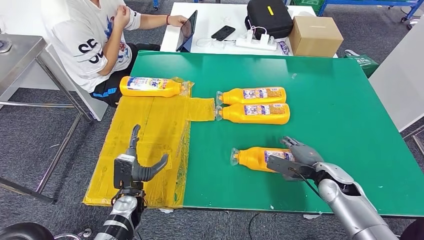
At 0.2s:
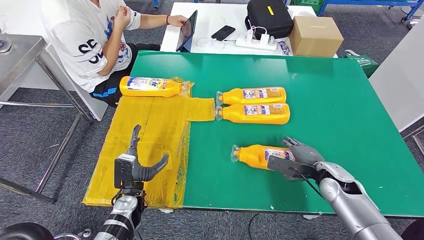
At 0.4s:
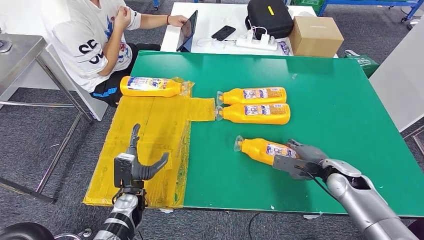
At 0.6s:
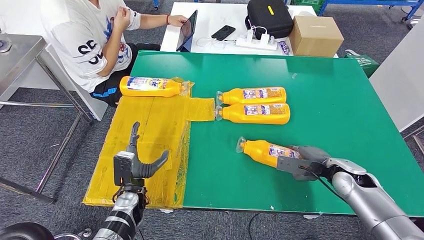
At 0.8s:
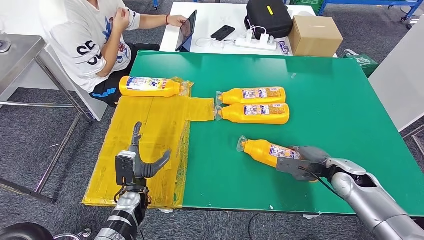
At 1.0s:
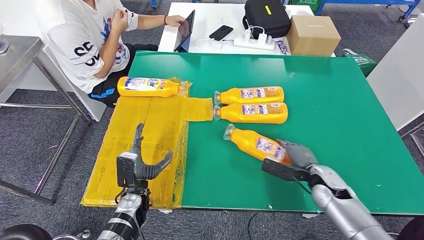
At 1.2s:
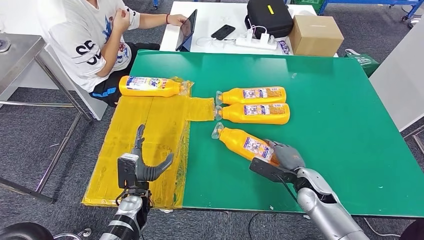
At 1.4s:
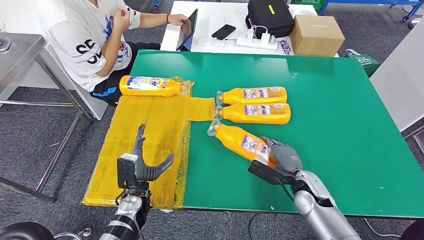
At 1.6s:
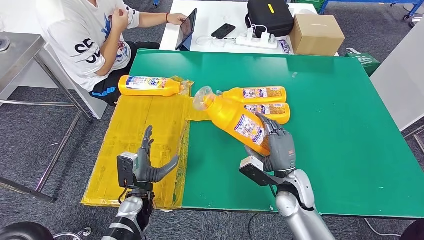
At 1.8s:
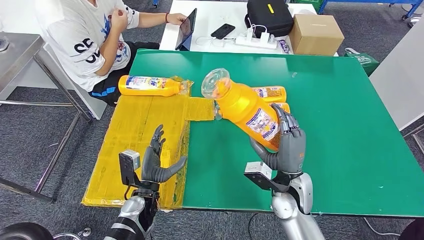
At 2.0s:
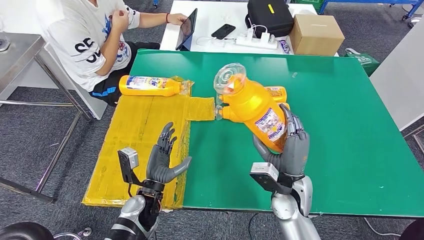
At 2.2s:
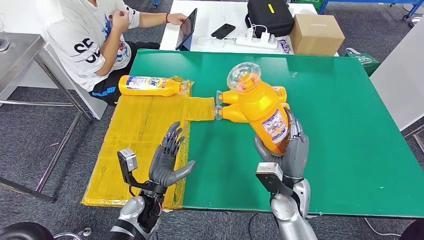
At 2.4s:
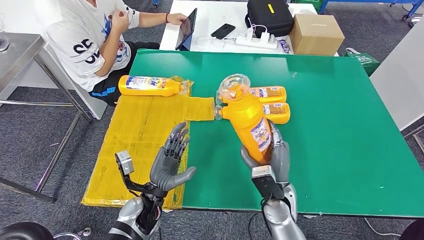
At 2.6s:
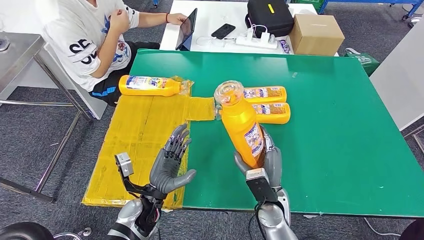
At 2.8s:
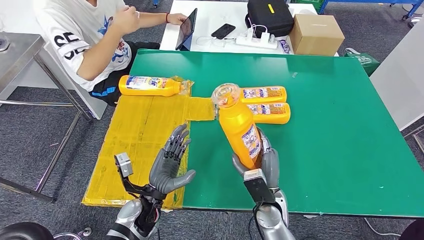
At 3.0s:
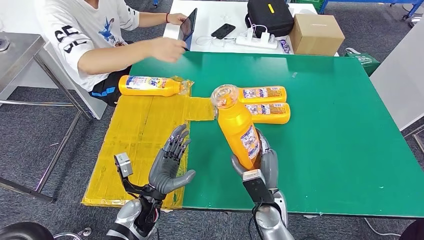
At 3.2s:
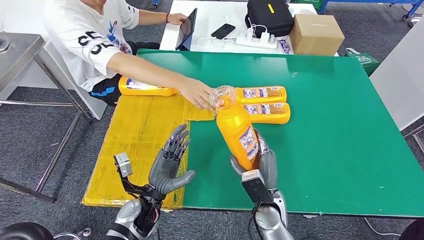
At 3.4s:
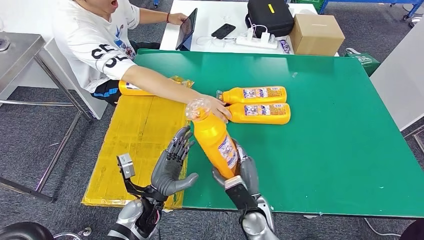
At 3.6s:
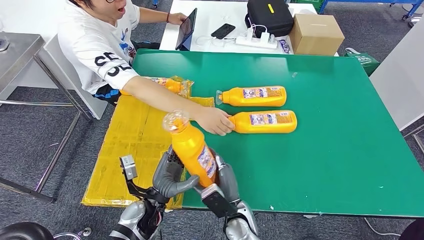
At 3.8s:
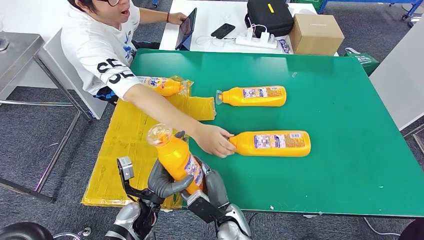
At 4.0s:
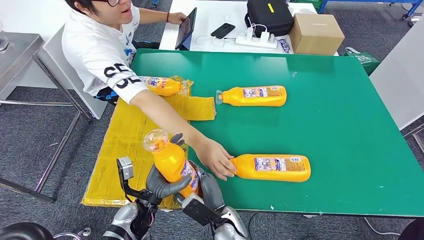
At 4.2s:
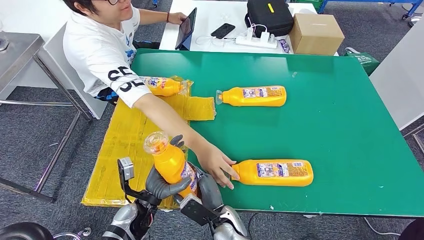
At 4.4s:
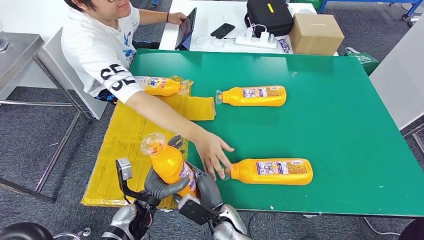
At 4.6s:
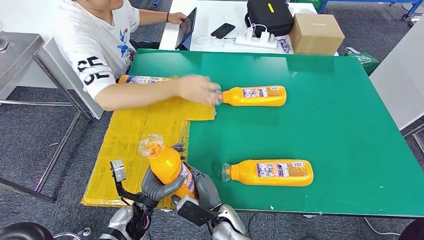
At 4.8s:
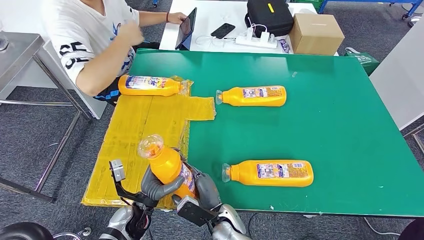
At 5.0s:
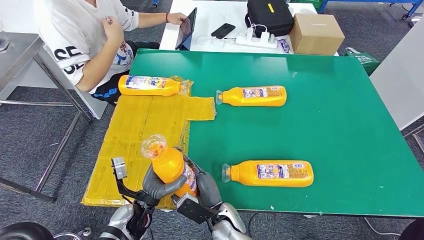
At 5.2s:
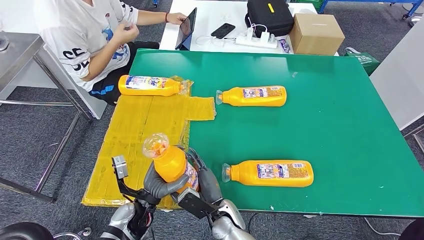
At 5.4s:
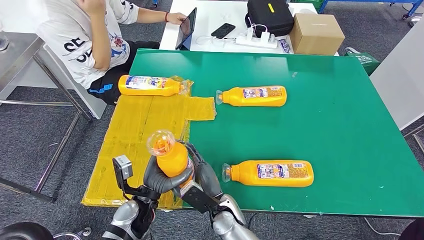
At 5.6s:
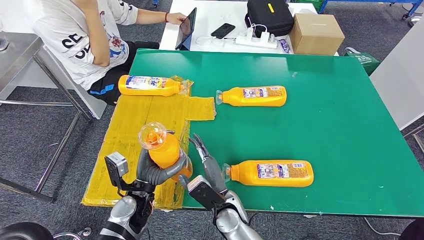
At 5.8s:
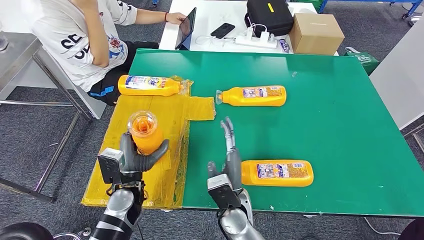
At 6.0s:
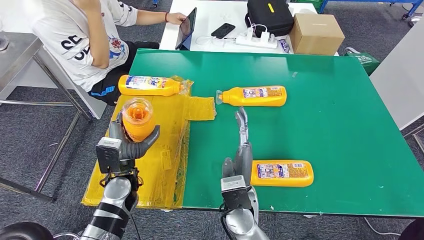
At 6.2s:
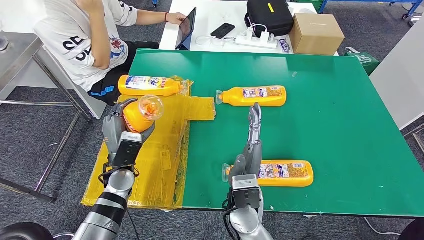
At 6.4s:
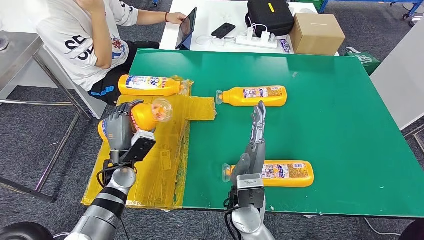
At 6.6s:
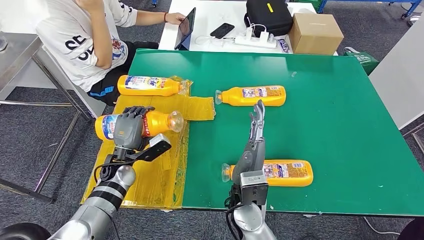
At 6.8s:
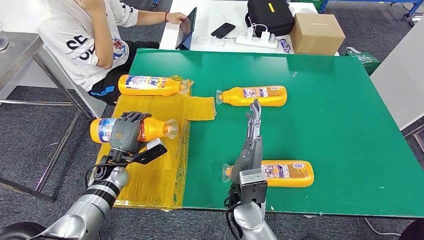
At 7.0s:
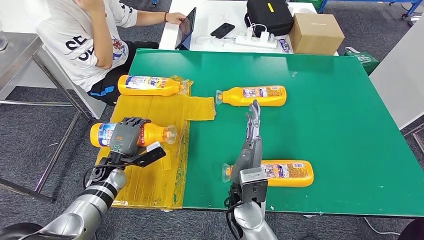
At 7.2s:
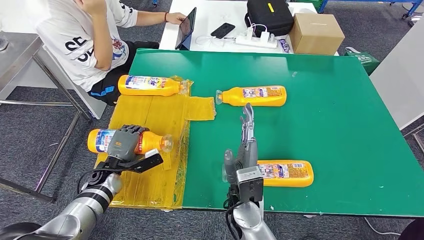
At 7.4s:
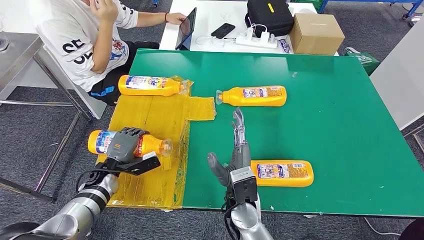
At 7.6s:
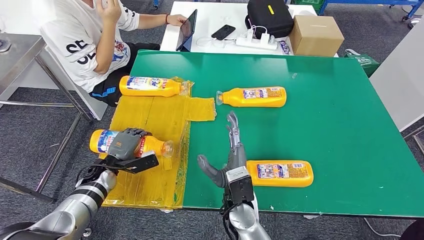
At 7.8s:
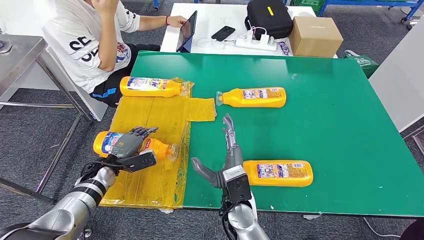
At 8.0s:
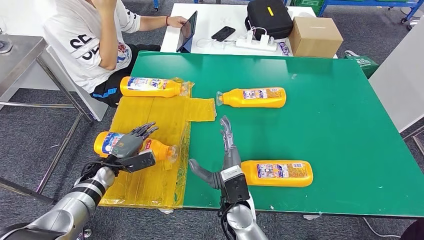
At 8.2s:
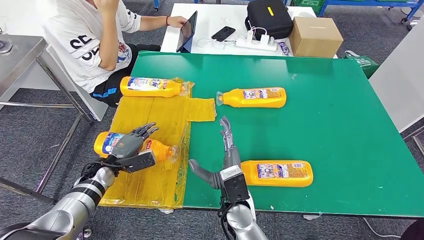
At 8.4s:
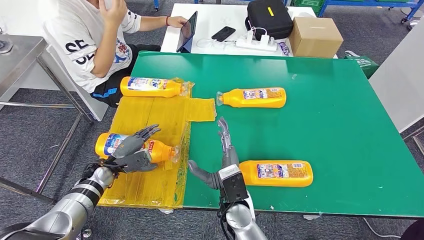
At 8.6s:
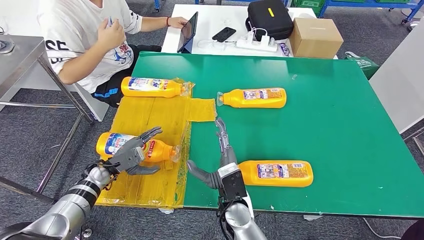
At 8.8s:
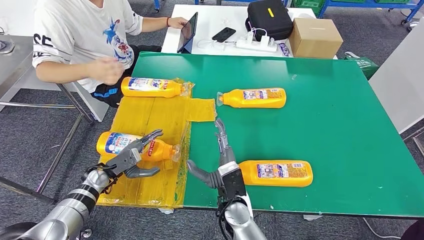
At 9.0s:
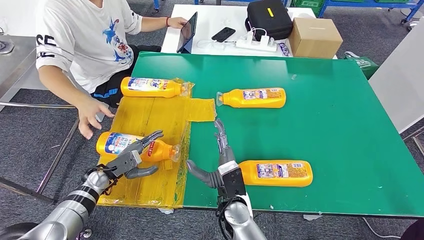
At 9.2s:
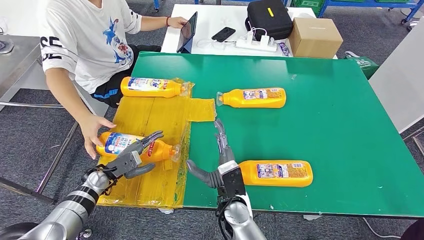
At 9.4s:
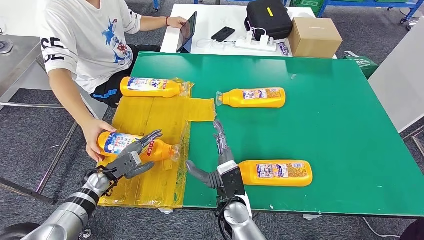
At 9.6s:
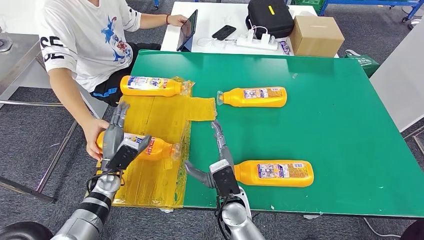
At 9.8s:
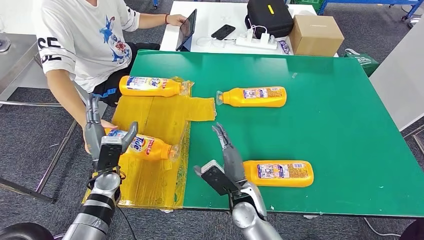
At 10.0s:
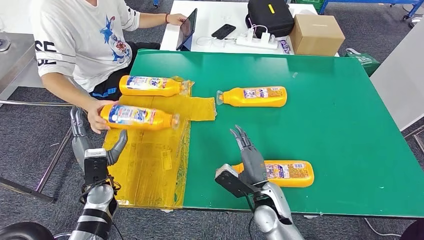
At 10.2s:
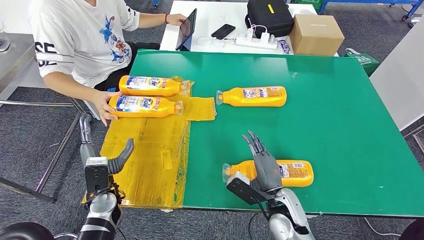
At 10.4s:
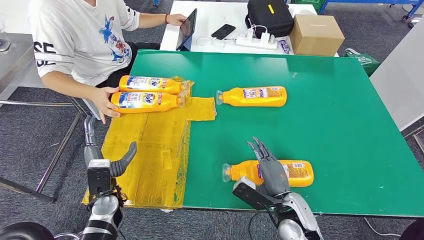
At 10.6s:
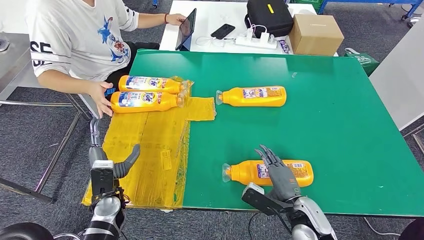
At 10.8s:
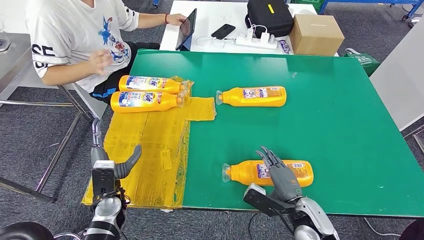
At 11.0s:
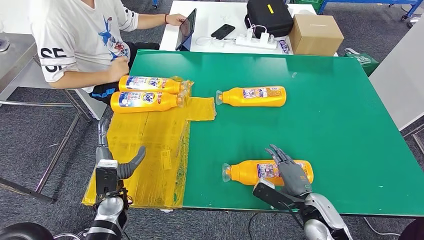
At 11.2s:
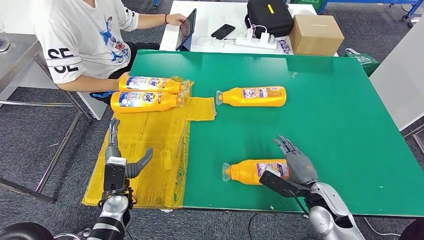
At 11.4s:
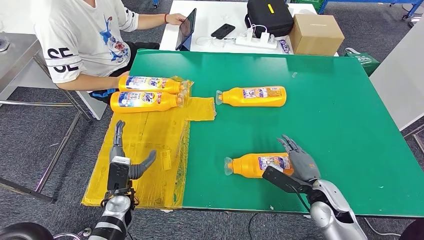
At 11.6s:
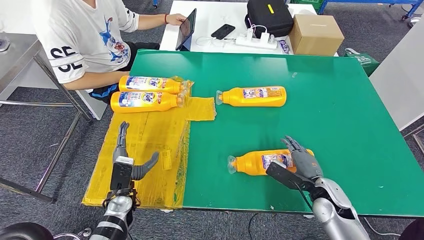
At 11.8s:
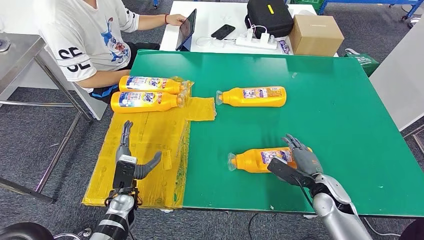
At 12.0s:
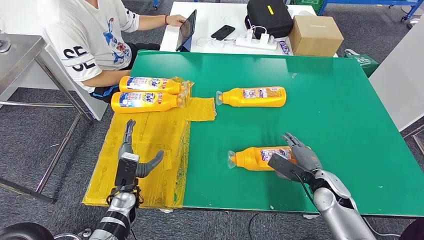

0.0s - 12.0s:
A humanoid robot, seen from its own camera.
Step, 0.0s - 2.4s: Pick up the fast-moving consumer goods bottle from the table.
Step, 2.6s - 6.4s: Flip the fast-moving consumer goods bottle to the front side.
1.6s - 3.0s: The left hand moves approximately 5 cm. Meanwhile the right hand moves to the left, approximately 5 cm.
6.0s - 7.6s: The left hand moves to the left, downward and forward, some 15 cm.

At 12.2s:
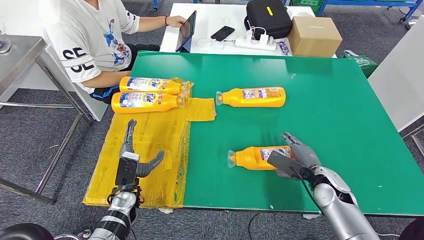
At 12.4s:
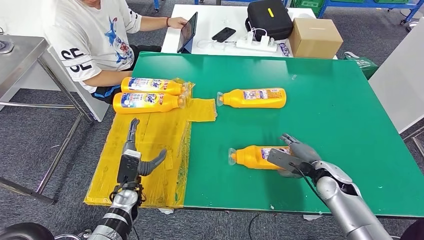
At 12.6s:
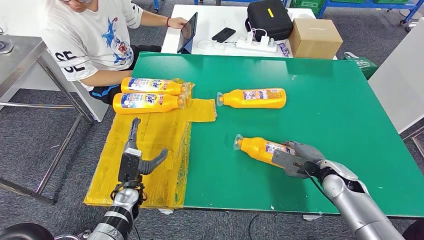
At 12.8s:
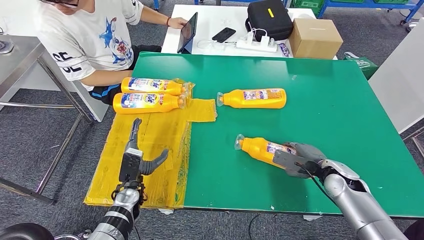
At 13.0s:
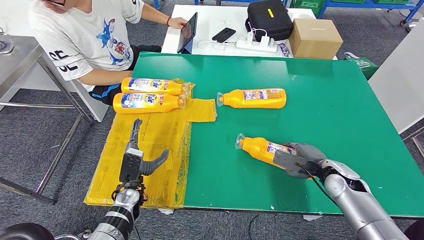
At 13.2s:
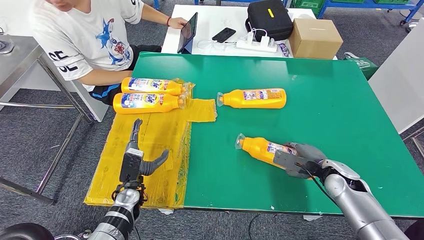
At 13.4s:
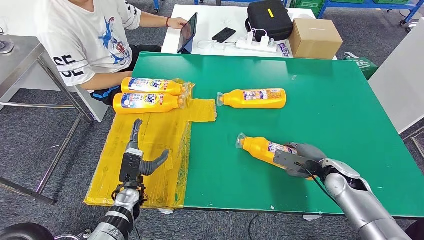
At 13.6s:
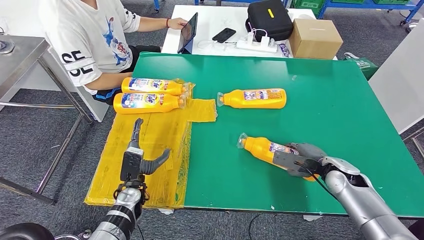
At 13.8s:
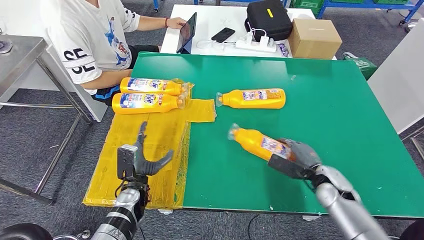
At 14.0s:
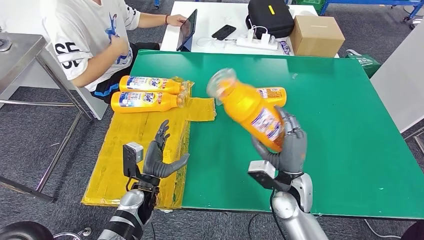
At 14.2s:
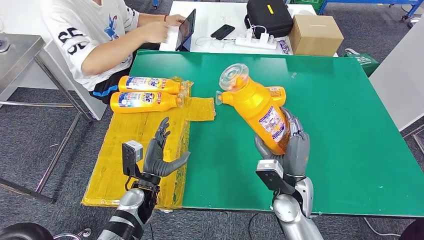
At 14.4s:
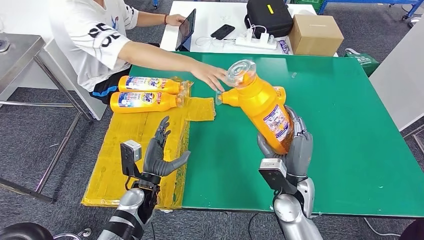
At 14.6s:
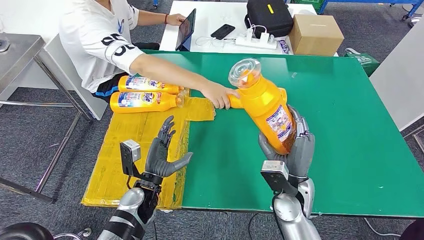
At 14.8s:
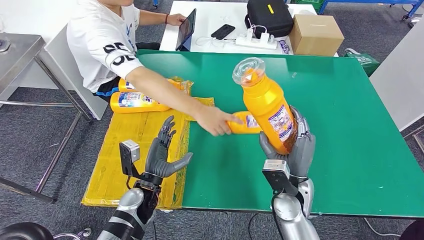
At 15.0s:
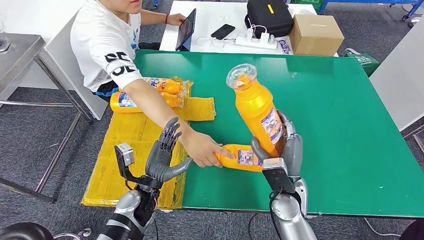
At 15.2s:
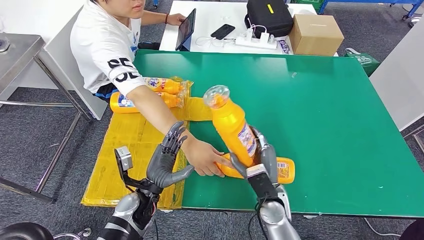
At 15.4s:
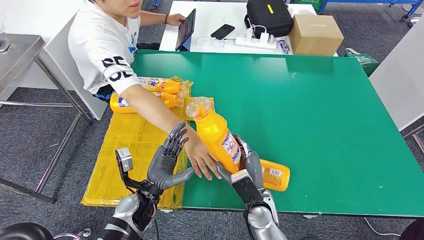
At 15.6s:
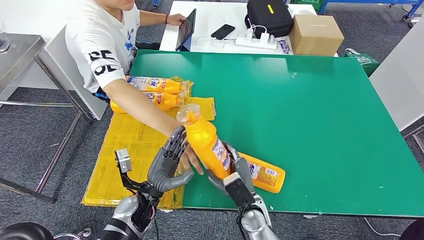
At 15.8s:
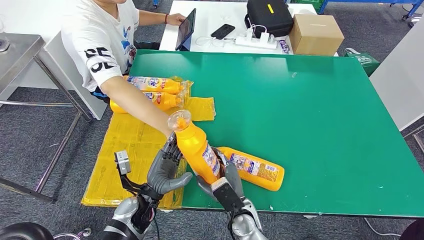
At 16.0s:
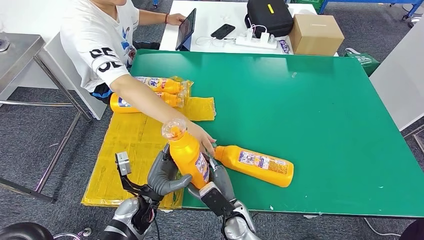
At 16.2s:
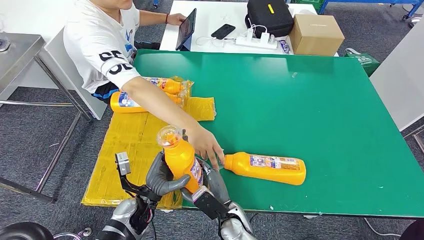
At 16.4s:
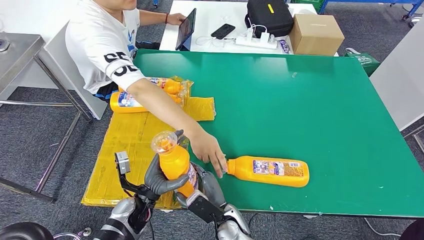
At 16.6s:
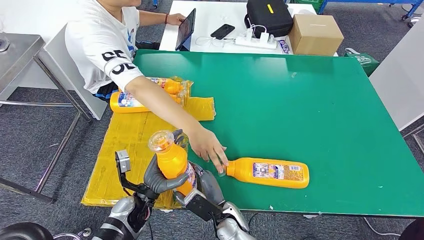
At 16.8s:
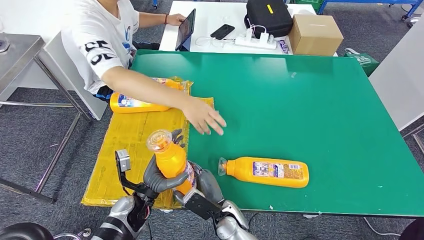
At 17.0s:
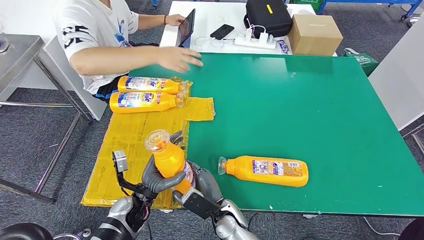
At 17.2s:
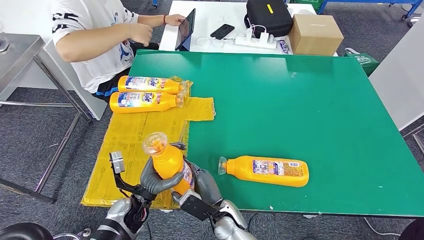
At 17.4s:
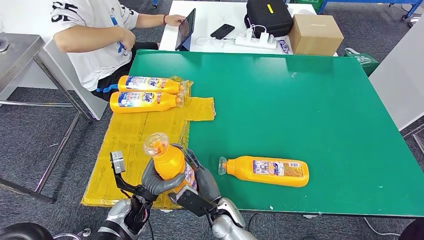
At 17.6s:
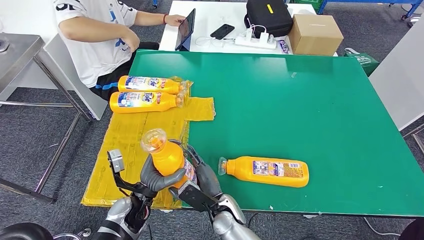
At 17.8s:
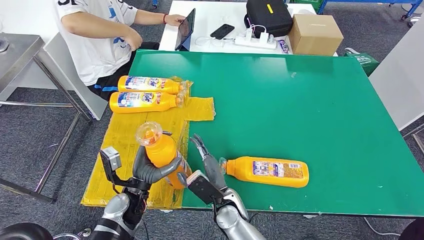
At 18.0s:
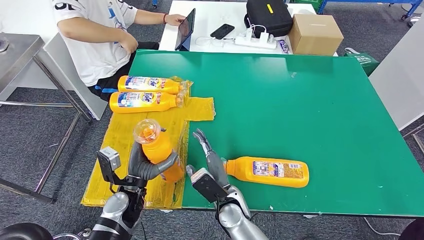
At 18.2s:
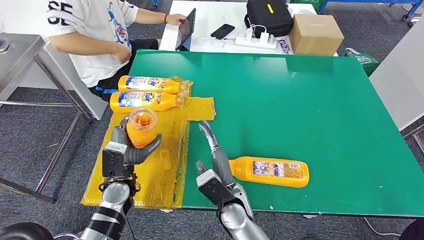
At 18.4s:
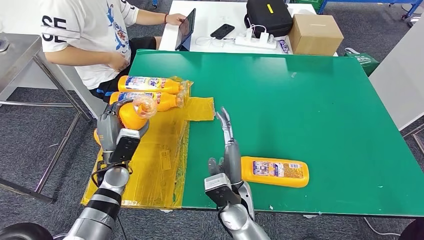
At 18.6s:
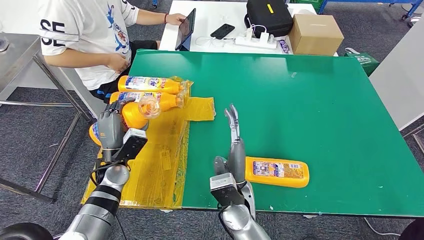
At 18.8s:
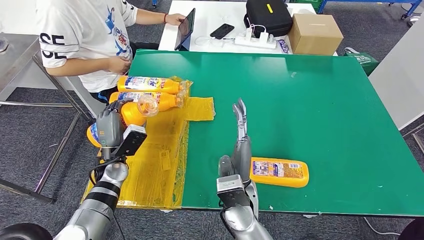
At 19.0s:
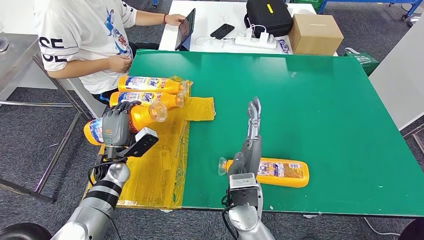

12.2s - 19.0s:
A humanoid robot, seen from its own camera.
Step, 12.2s - 15.0s: Pick up the fast-moving consumer goods bottle from the table.
15.0s - 16.2s: The right hand moves to the left and downward, about 15 cm.
16.2s - 17.6s: The hands make only small movements.
17.6s - 19.0s: The left hand shifts about 10 cm forward and to the left; the right hand shifts approximately 10 cm upward.
